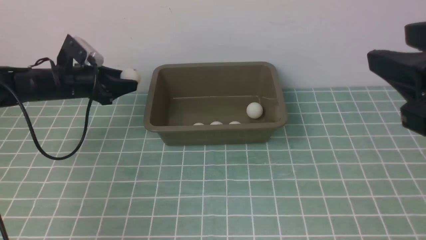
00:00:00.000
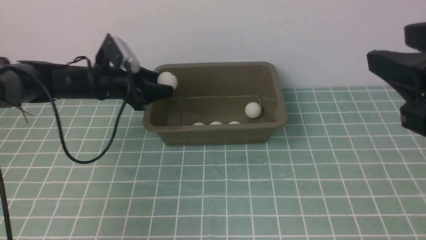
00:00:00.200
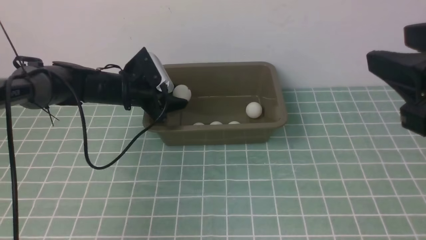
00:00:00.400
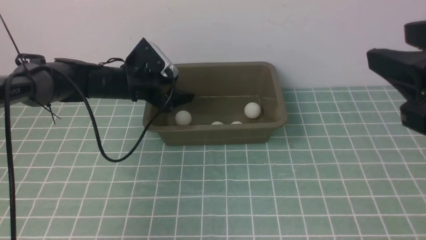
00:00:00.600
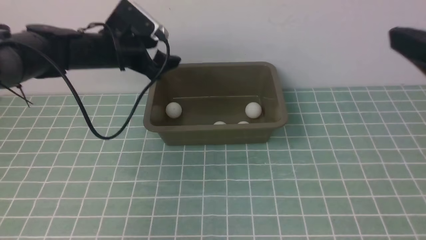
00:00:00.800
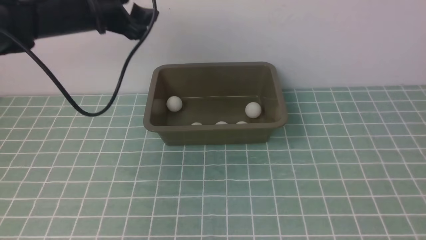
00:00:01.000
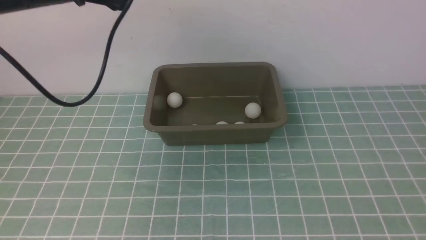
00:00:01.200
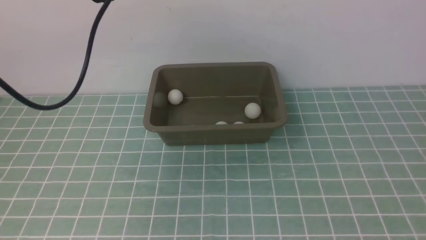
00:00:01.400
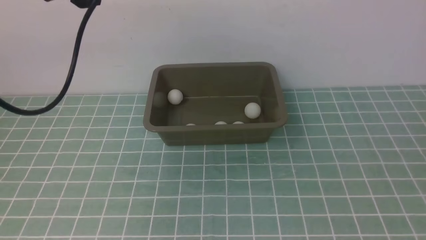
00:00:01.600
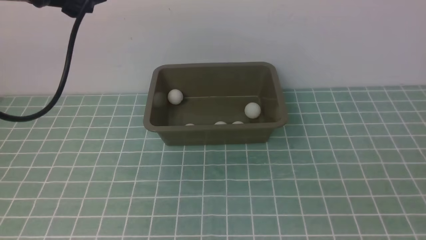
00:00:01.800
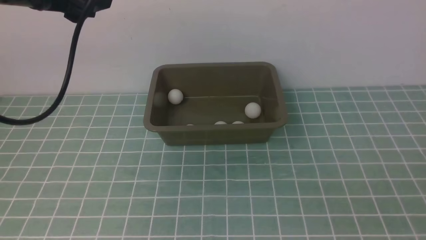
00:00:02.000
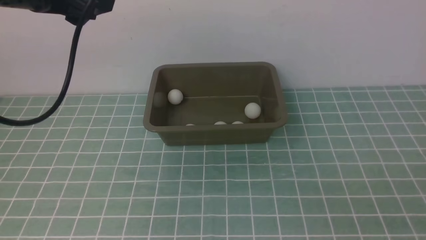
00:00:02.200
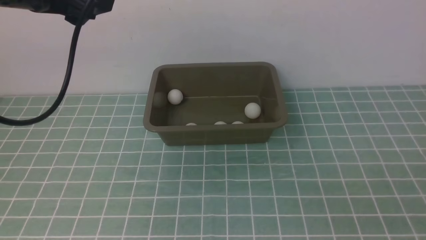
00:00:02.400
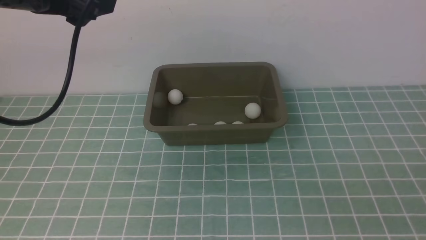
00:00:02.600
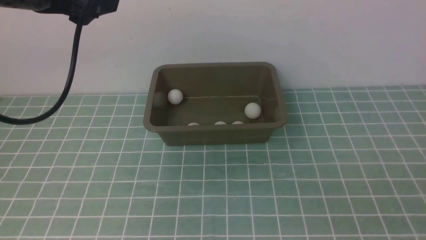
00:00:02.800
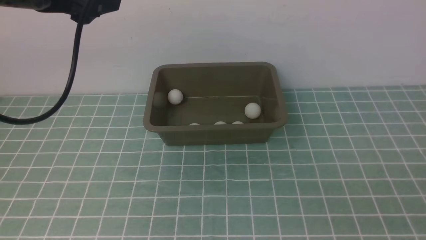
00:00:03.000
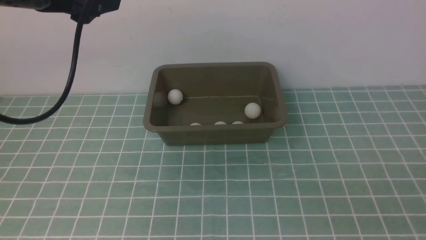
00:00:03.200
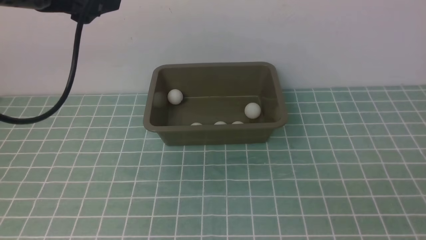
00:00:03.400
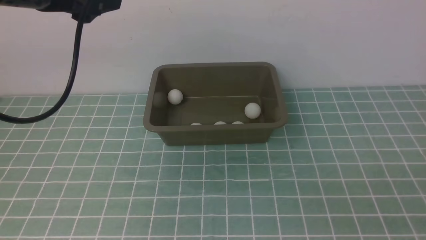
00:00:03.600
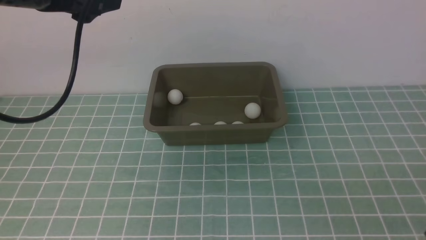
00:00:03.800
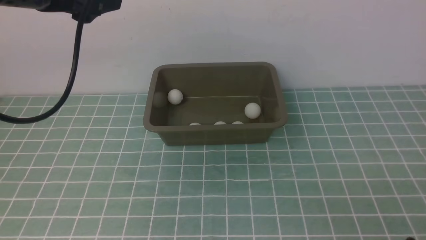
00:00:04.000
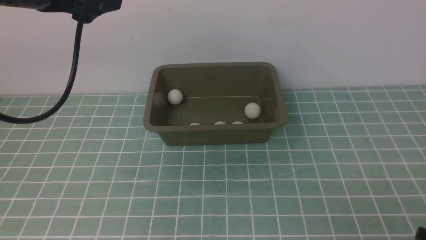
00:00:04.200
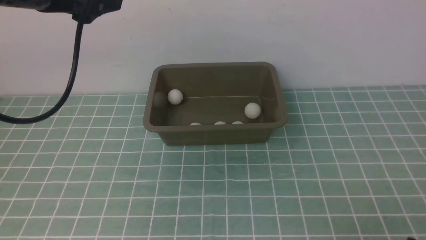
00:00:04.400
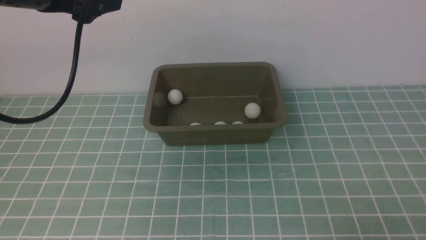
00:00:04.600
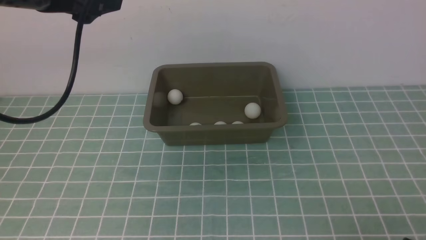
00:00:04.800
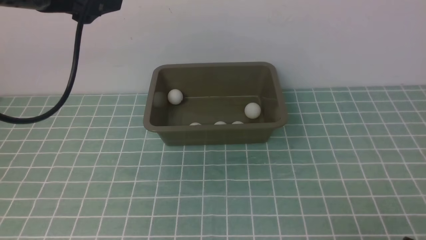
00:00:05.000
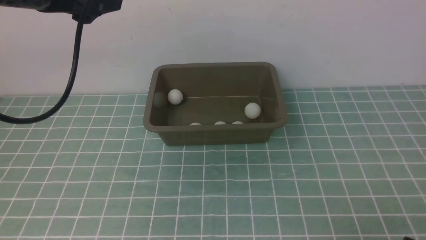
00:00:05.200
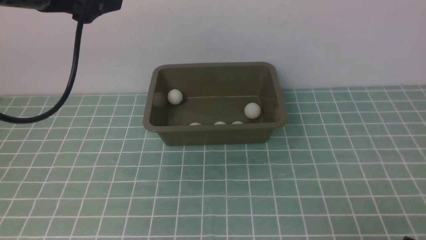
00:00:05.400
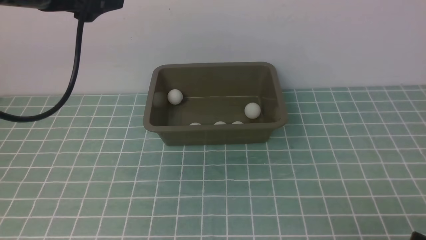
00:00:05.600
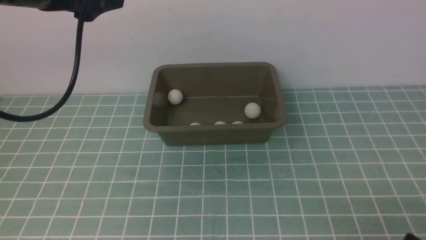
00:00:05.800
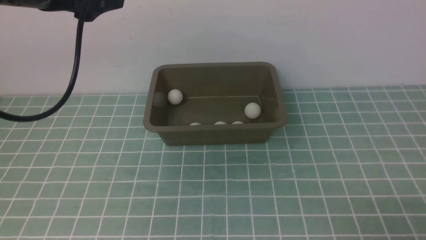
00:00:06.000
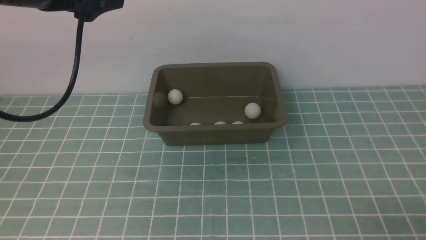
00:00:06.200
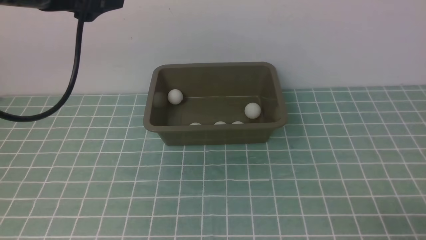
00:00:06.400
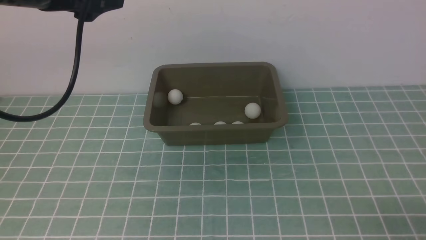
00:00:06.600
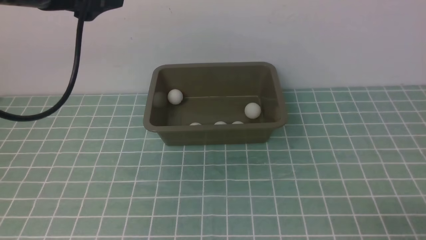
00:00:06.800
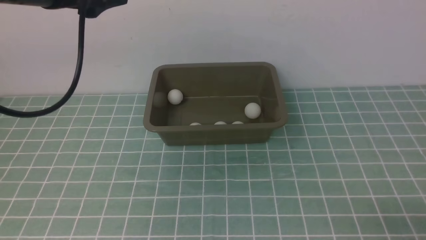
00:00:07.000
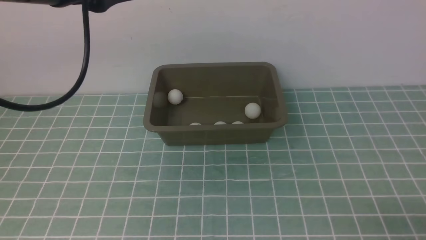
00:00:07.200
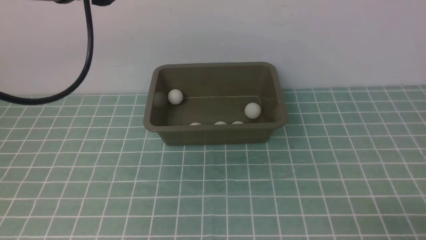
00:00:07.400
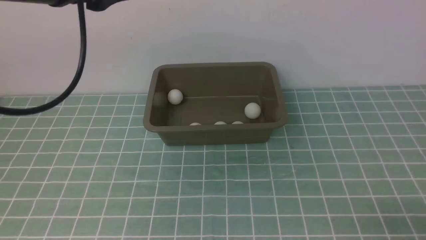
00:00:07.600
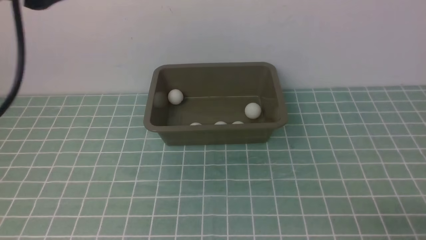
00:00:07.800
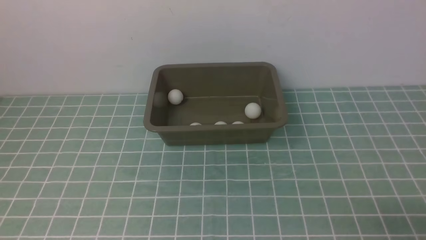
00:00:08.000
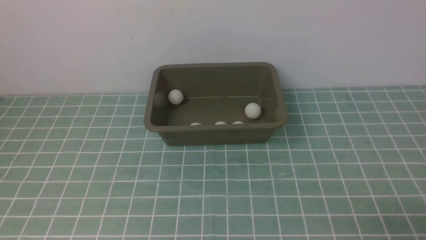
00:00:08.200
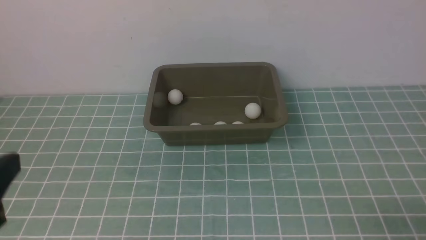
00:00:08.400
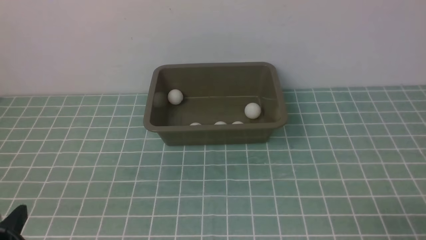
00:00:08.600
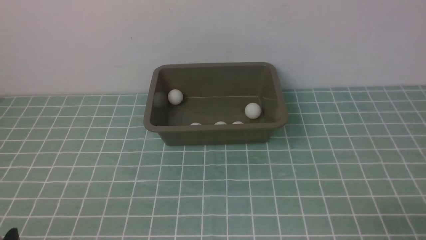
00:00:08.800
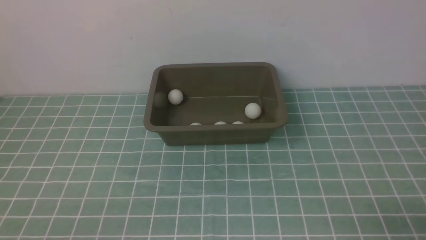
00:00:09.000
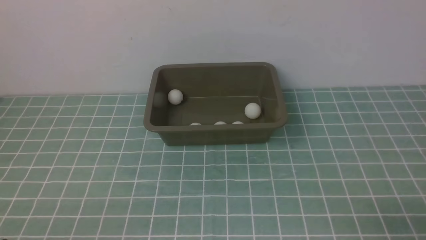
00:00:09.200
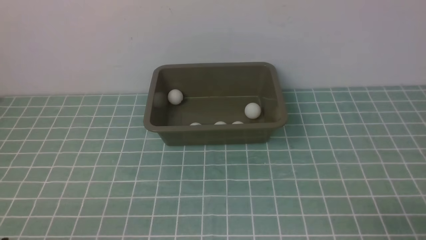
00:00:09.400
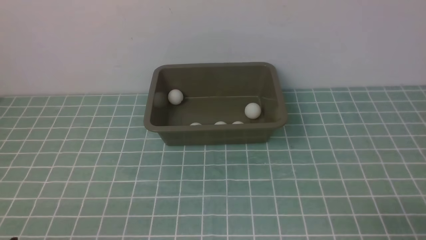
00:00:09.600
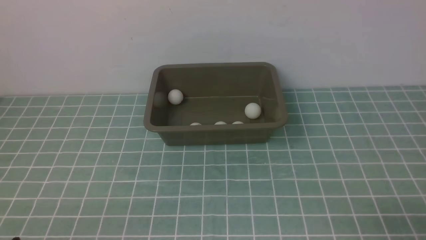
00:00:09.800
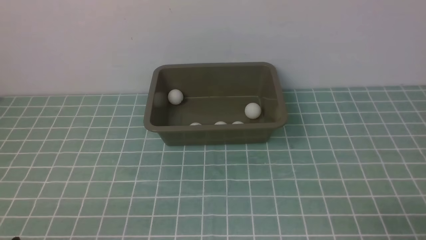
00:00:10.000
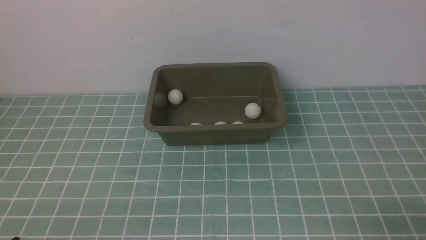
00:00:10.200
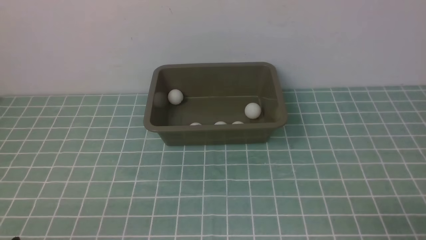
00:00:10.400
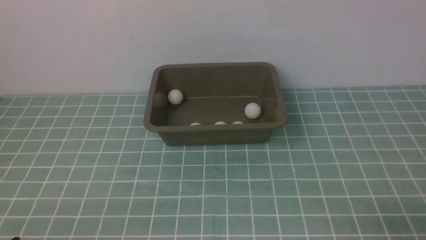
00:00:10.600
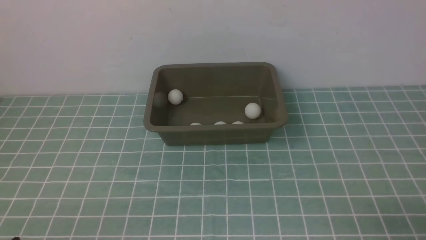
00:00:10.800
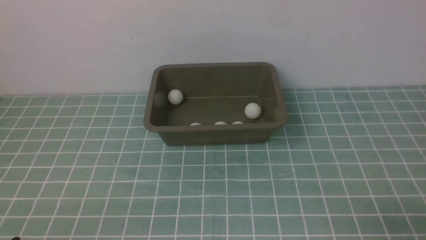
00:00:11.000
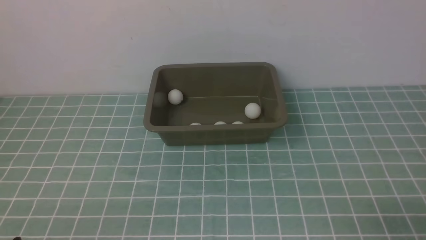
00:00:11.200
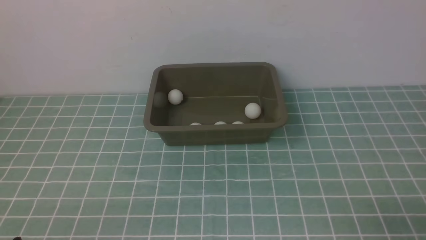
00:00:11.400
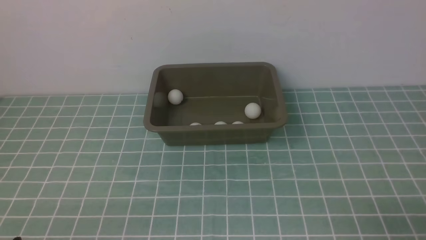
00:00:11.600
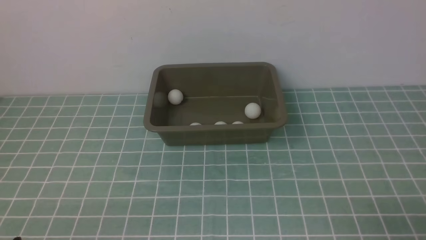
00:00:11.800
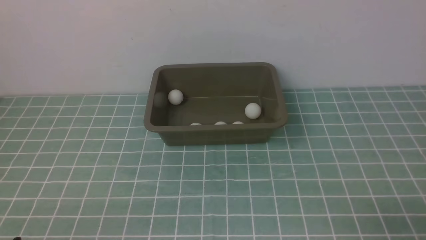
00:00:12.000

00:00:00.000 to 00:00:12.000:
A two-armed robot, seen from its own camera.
00:00:00.000 to 00:00:01.600: The left gripper travels upward and backward by approximately 30 cm, and opens. Meanwhile the right gripper goes approximately 20 cm backward and to the right.
00:00:06.000 to 00:00:07.600: The left gripper goes approximately 5 cm backward.
00:00:07.600 to 00:00:09.000: The left gripper is displaced downward and backward by approximately 35 cm.

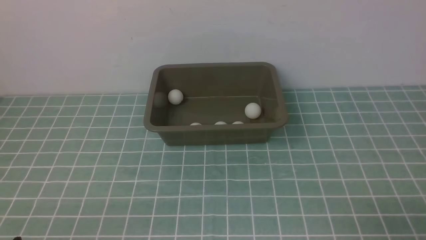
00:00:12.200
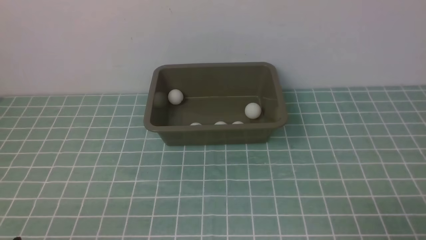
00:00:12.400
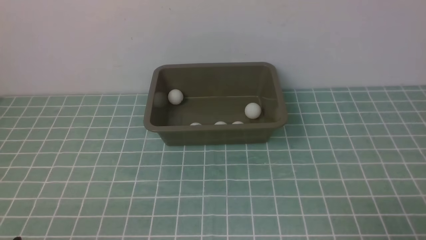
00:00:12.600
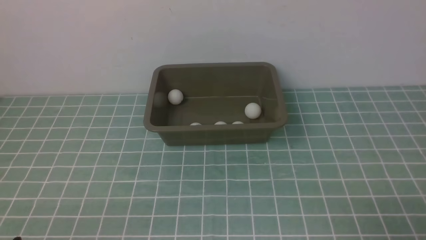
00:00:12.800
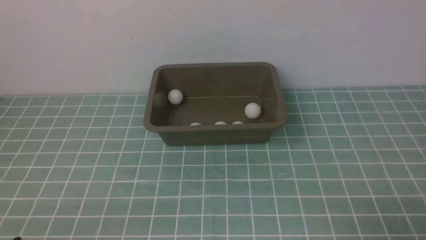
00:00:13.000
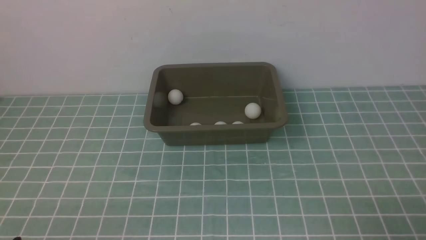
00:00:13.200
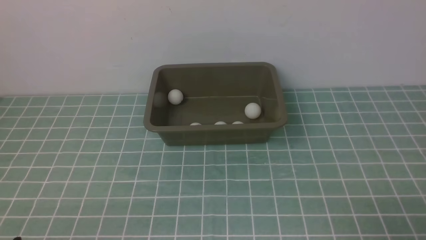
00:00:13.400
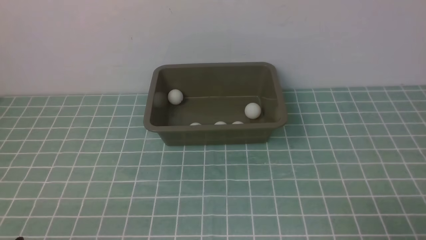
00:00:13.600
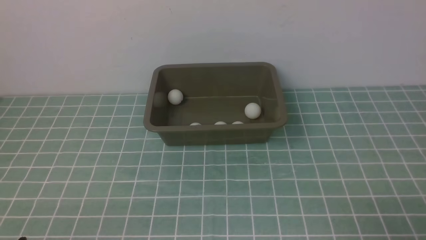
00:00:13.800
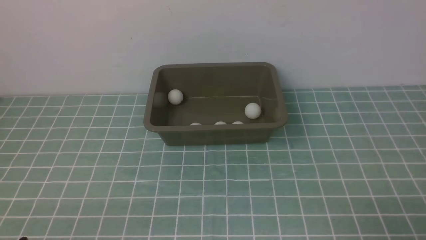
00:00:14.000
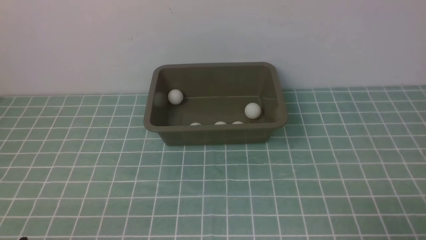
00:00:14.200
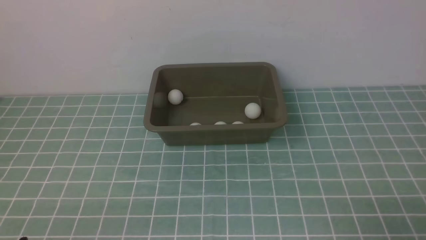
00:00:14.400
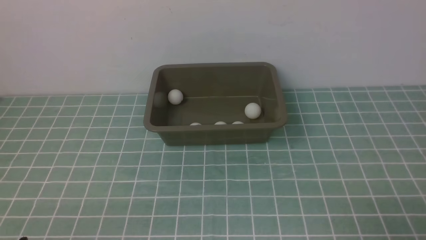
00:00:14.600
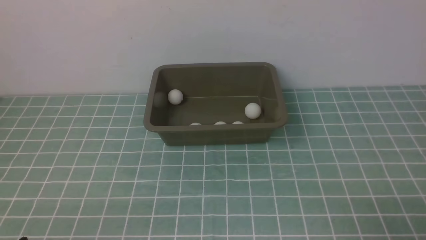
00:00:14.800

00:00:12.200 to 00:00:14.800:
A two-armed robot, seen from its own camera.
00:00:13.400 to 00:00:14.800: The two grippers keep their place.
